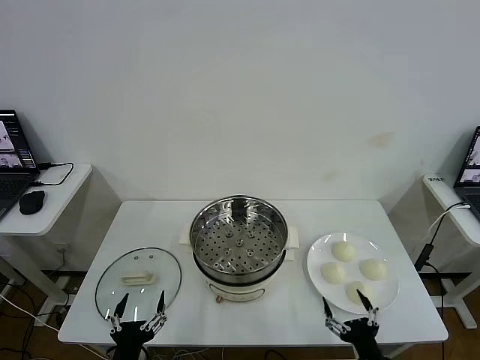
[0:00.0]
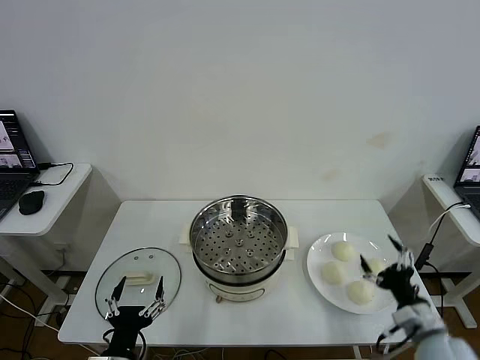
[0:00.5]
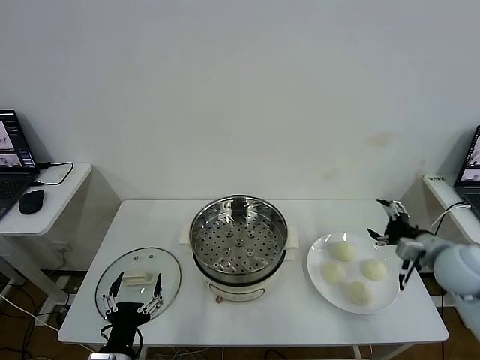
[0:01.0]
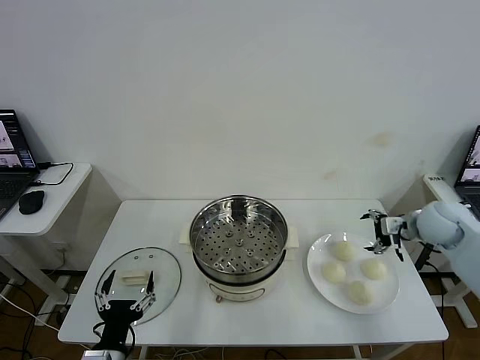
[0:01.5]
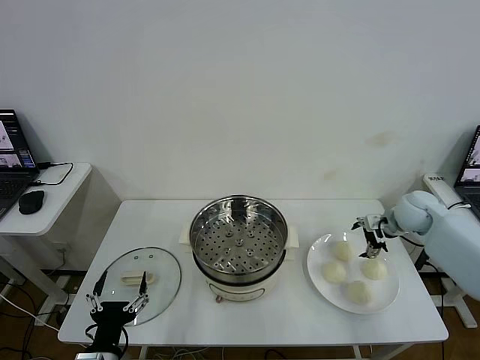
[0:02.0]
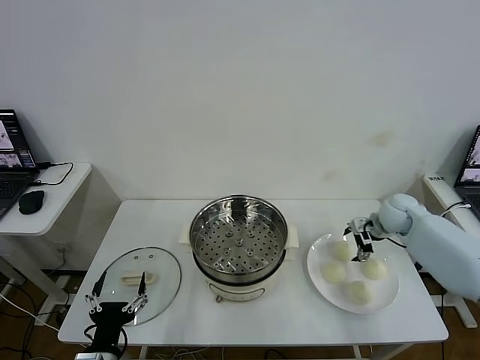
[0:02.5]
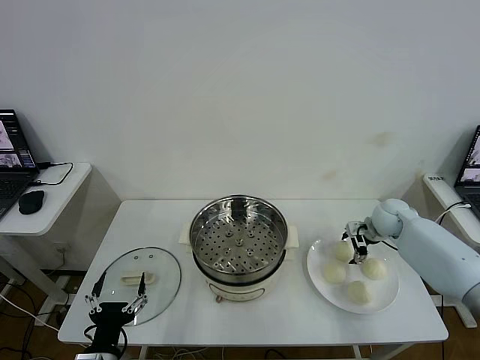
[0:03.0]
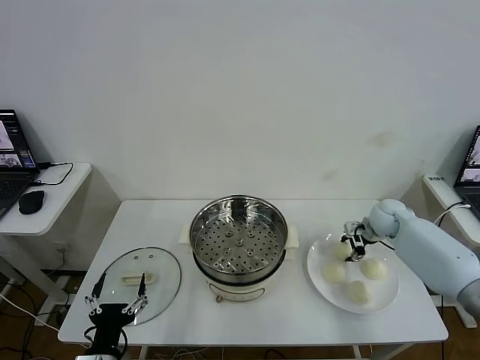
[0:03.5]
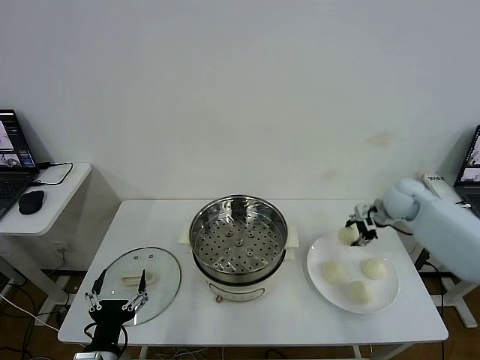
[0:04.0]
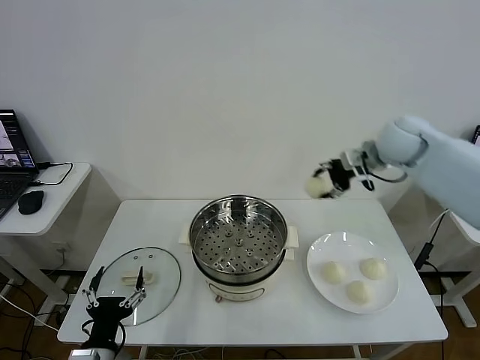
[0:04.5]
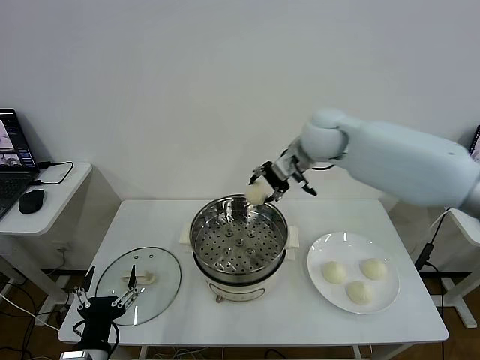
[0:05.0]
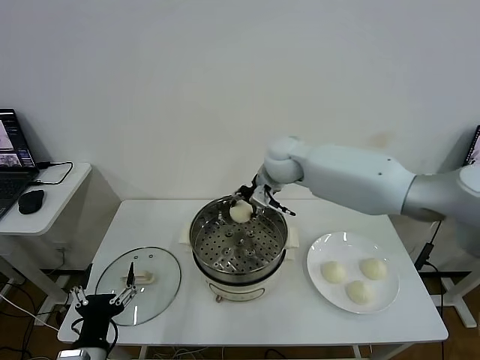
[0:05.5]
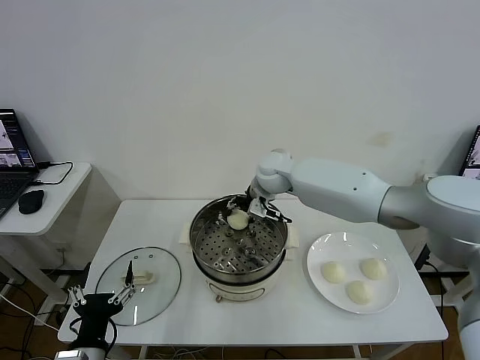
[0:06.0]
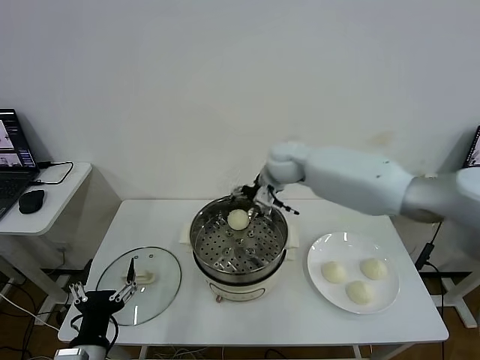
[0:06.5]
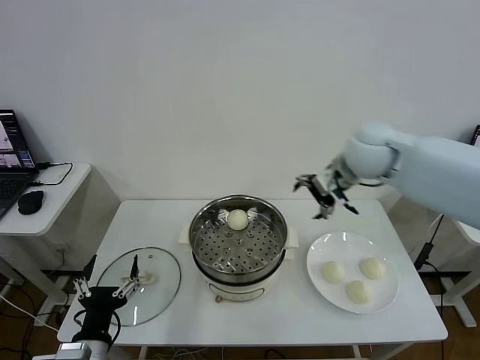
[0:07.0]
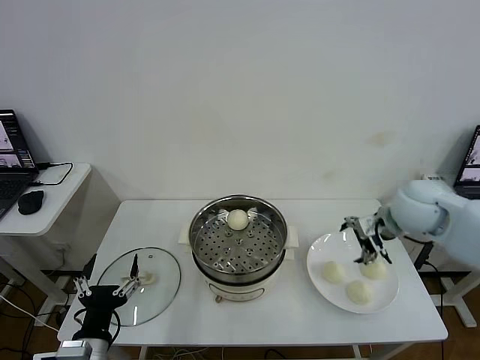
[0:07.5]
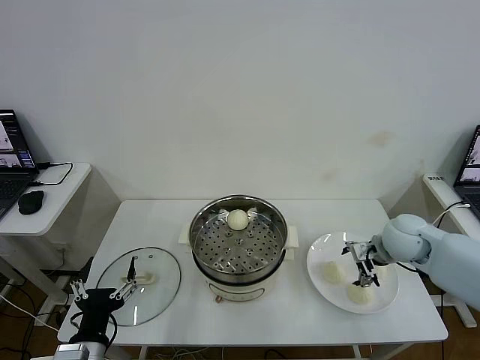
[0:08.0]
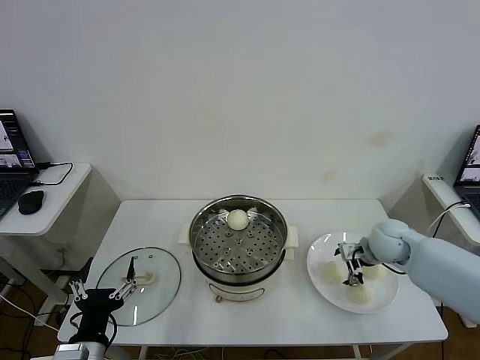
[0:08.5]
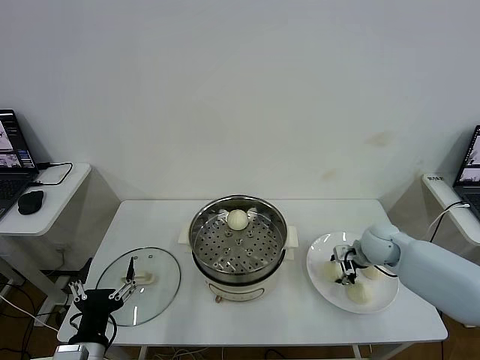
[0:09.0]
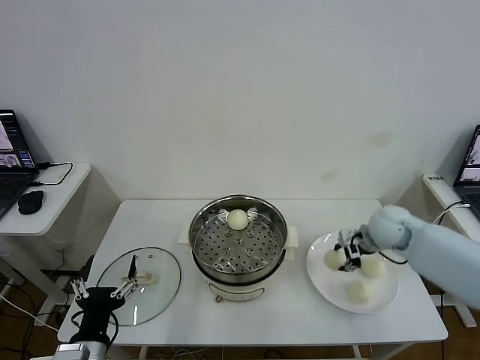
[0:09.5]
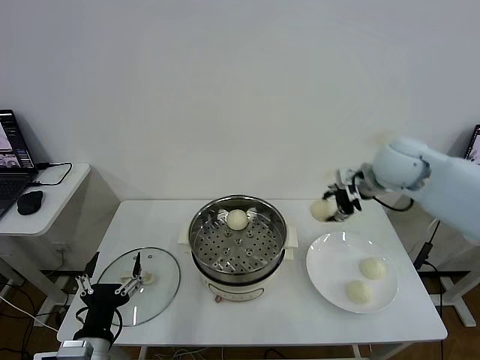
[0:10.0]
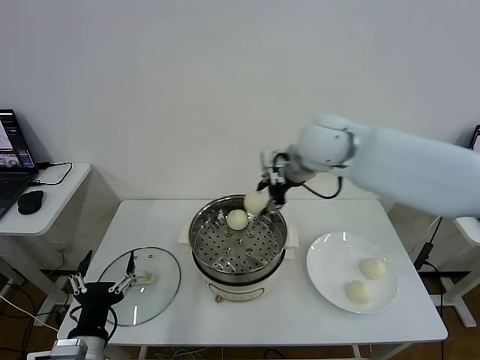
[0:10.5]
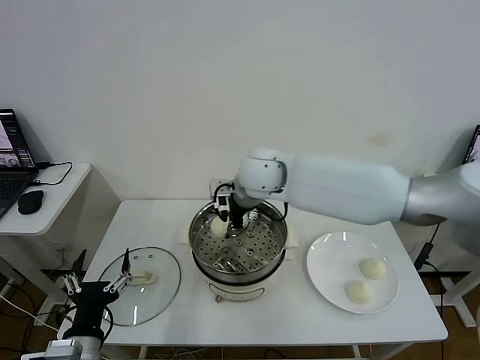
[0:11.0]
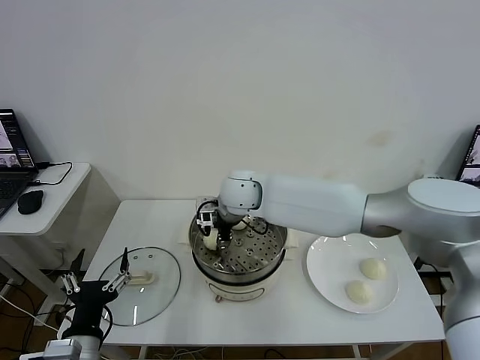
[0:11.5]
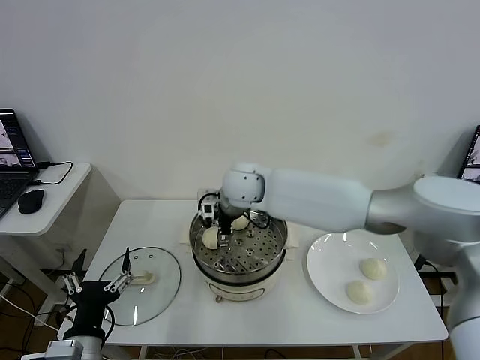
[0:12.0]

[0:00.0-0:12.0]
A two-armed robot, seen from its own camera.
Step, 0.0 to 3.0 s: Grasp the baozi in the plate with right gripper.
Step, 3.5 to 6.0 s: Place the baozi on the steamer with right gripper.
Step, 6.5 to 9.0 s: Grasp the baozi in the plate with right gripper.
2.0 to 4.0 s: The right gripper travels upward by about 5 cm, and closes.
4.0 to 6.0 s: The right gripper heads to the left, covering about 30 cm, and opens its fingers.
6.0 to 8.0 s: The right gripper moves to the right and backward, some 30 cm, and opens.
8.0 to 10.0 s: The right gripper travels upward and to the left by roughly 20 cm, and closes its fingers.
10.0 to 12.0 s: The right gripper is displaced to the left by approximately 25 cm, and opens up.

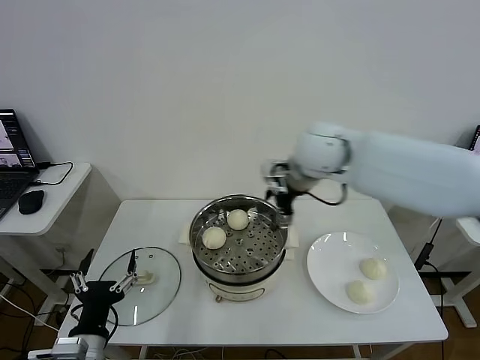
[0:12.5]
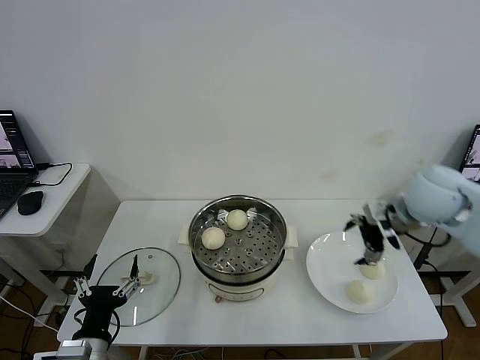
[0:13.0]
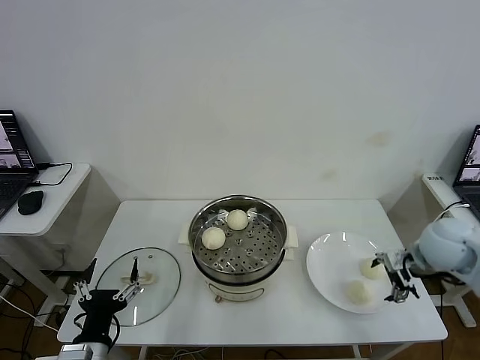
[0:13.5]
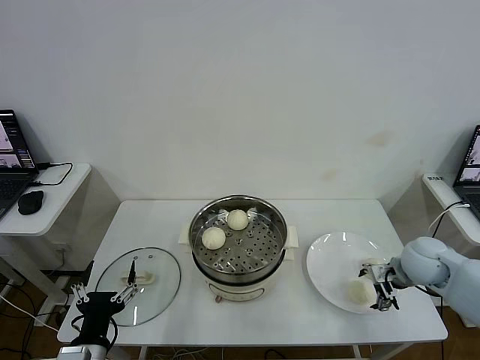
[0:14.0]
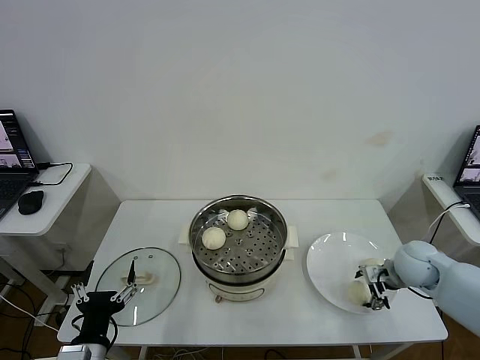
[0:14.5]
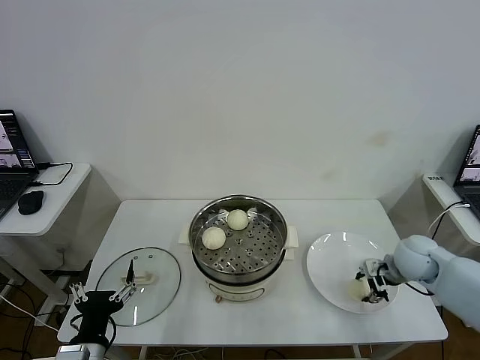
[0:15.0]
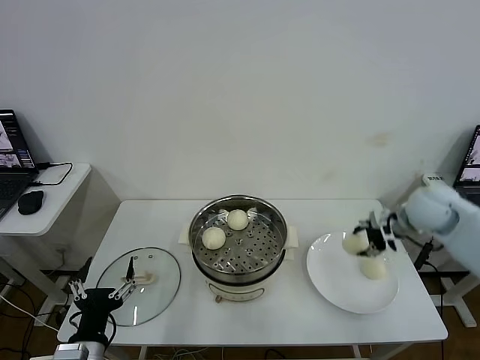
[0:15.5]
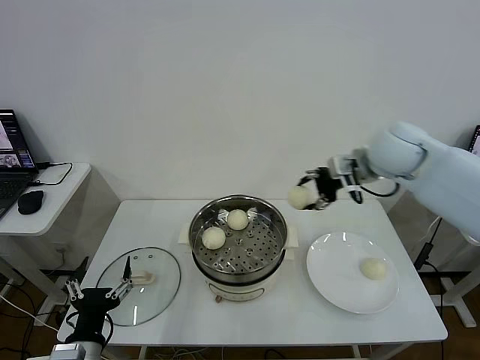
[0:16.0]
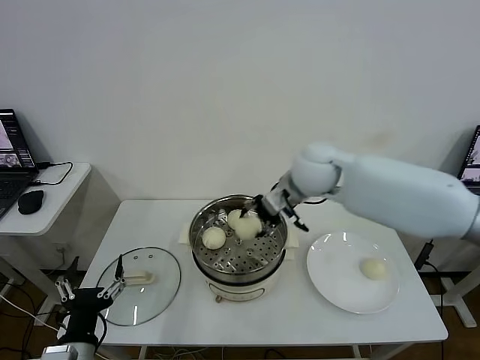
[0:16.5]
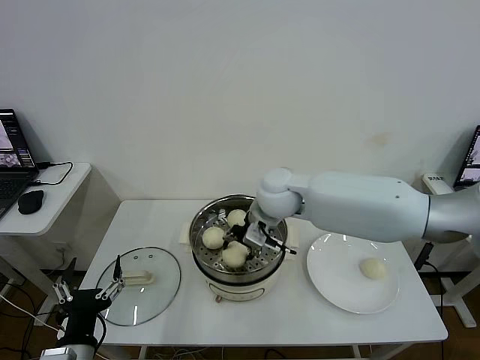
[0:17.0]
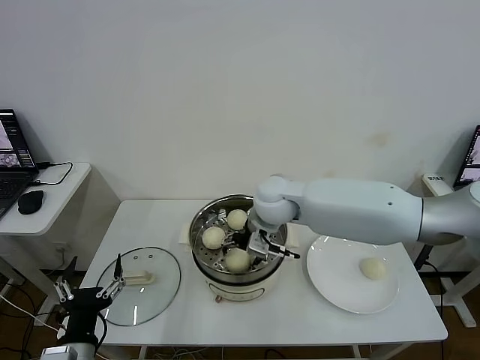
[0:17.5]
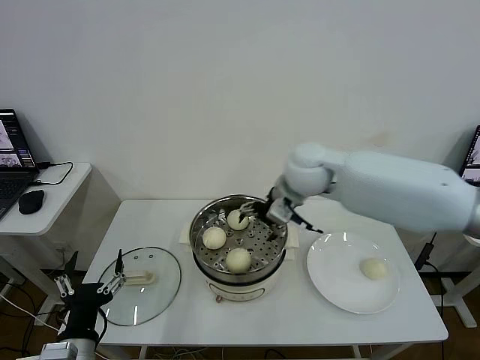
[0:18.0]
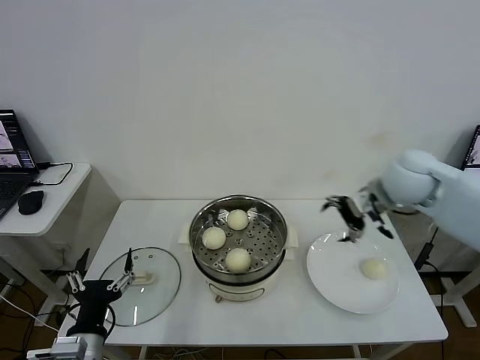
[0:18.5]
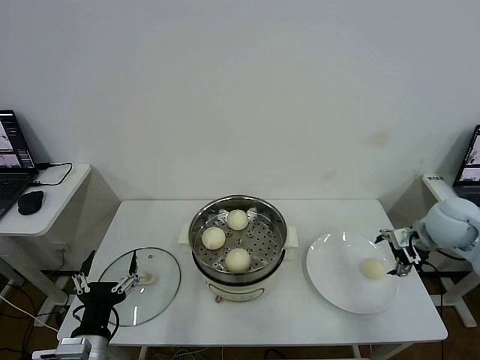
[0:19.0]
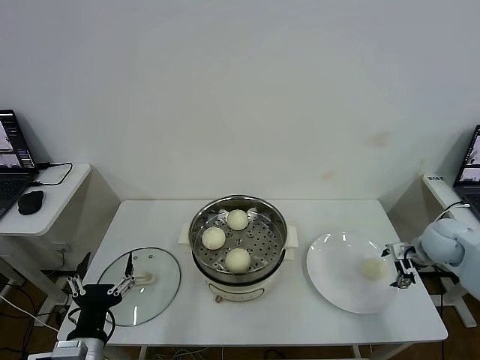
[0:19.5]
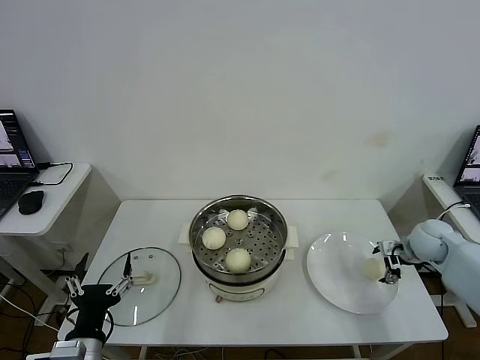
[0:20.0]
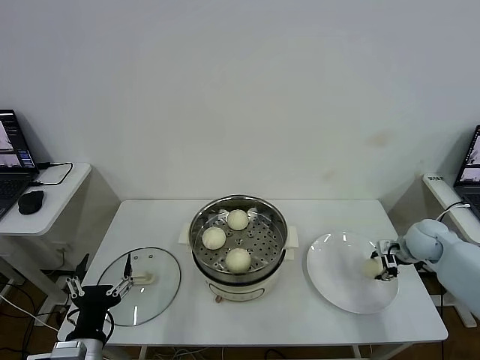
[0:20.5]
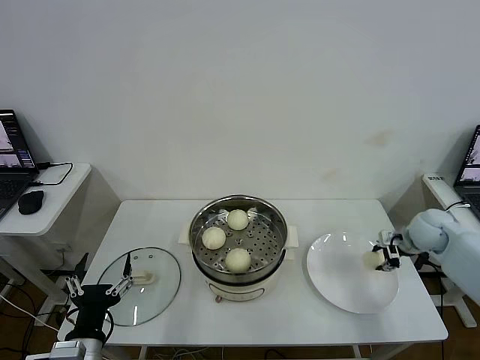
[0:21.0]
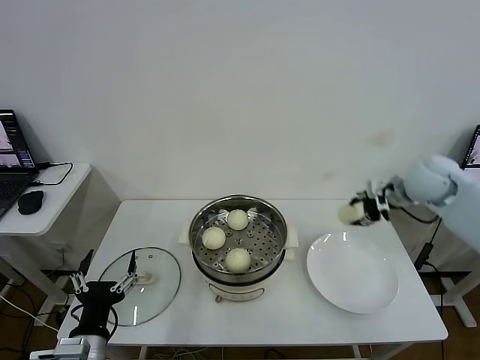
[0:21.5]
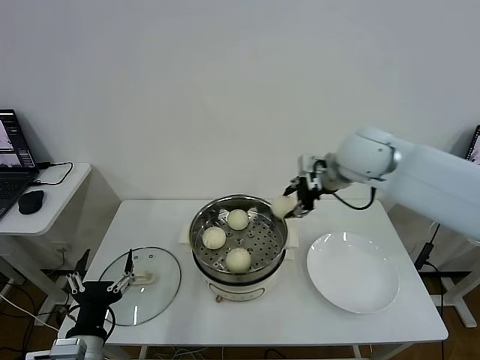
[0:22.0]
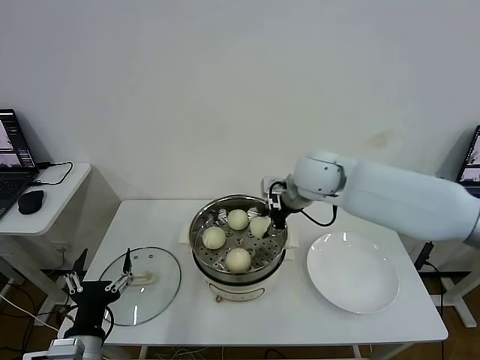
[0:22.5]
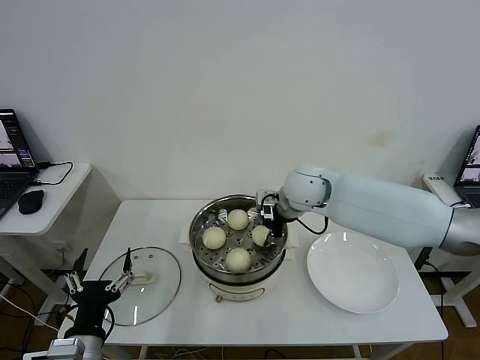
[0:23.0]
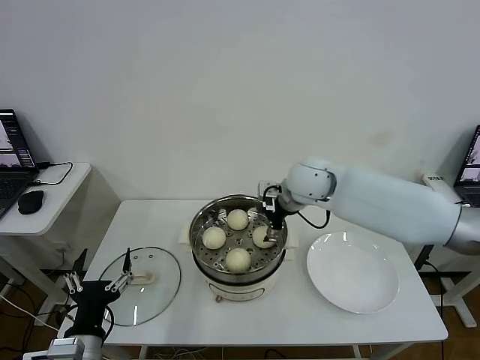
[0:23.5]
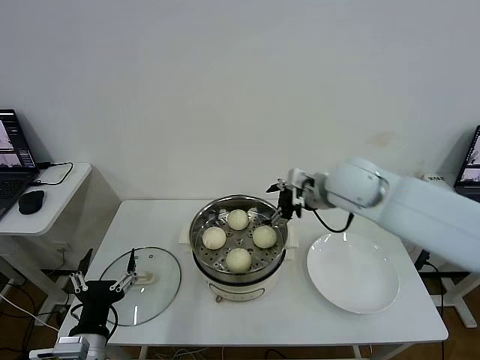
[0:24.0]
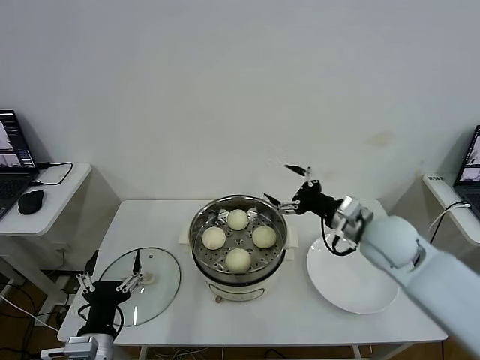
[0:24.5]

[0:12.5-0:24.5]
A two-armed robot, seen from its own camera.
Step, 12.5 to 14.5 s: Grasp the baozi in the plate with right gripper.
Step, 15.0 to 17.5 s: Place the baozi on the steamer with right gripper.
Step, 18.0 to 20.5 s: Grasp the baozi in the plate with right gripper.
Step, 21.0 to 23.5 s: Place the baozi on the steamer with right gripper.
12.5 to 14.5 s: The right gripper is displaced downward and to the right by approximately 30 cm.
14.5 to 16.5 s: The right gripper shifts approximately 30 cm to the left and upward, and closes.
16.5 to 18.5 s: The right gripper moves to the right, some 20 cm, and opens up.
18.5 to 20.5 s: The right gripper moves downward and to the right, about 25 cm, and closes.
20.5 to 22.5 s: The right gripper heads to the left and upward, covering approximately 35 cm.
22.5 to 24.5 s: The right gripper shifts some 20 cm to the right, backward and downward, and opens its fingers.

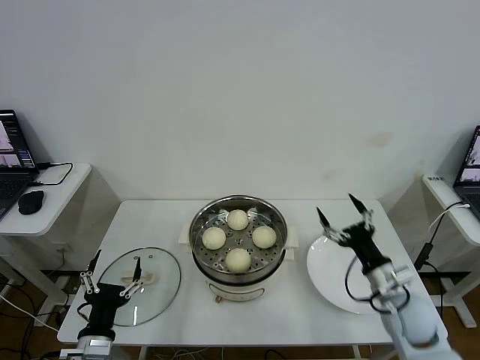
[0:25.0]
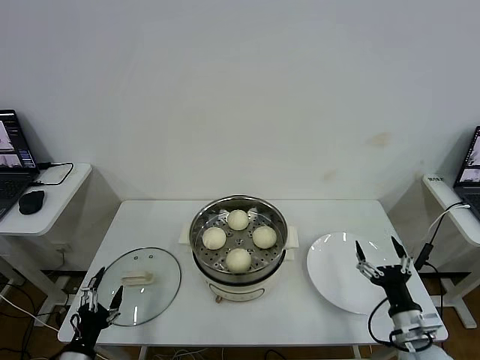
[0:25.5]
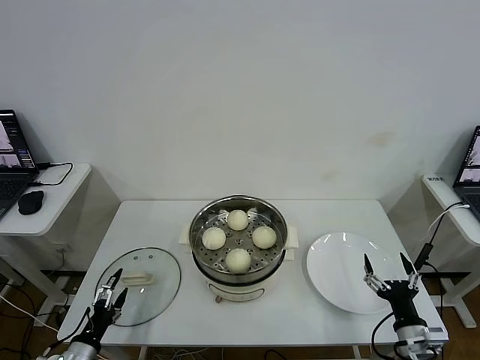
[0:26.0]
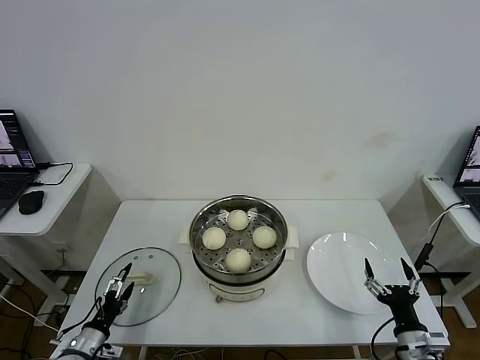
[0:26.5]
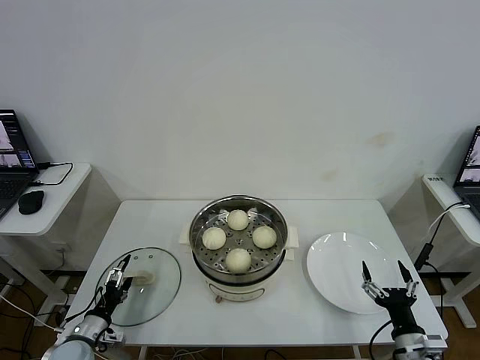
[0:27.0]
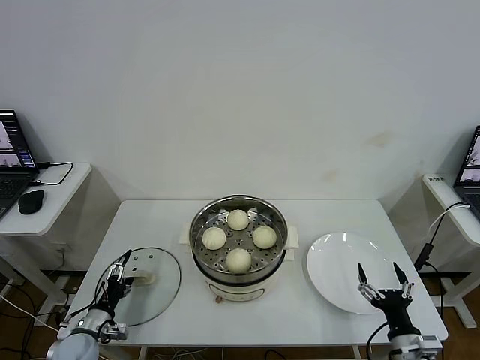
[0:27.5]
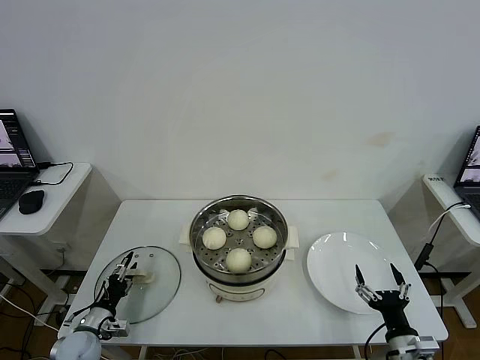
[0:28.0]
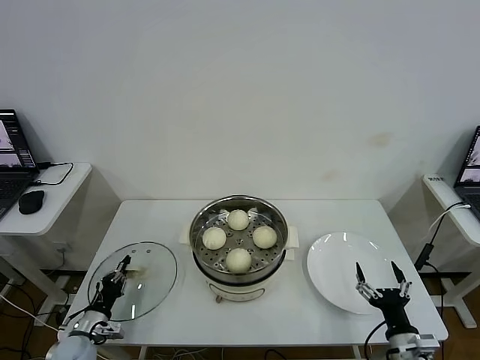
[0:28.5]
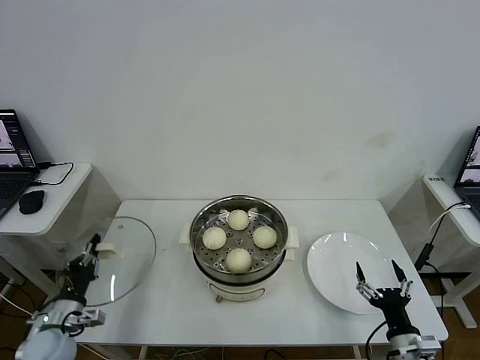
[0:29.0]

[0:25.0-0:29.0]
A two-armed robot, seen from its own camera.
Step, 25.0 to 28.5 s: Grasp the pot lid with left gripper.
25.0 to 27.0 s: The left gripper travels to the left, downward and forward by approximately 15 cm. The right gripper goes some 15 cm backward and downward.
27.0 to 29.0 s: The left gripper shifts by approximately 5 cm, and closes up.
